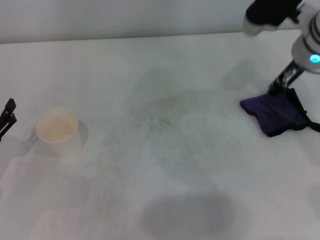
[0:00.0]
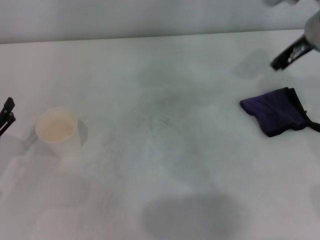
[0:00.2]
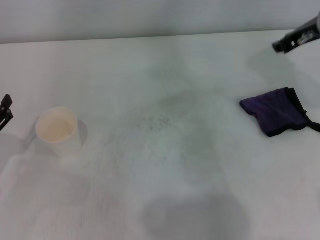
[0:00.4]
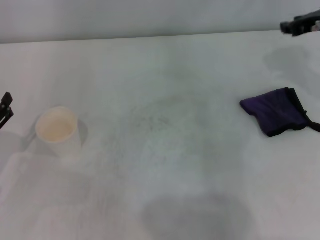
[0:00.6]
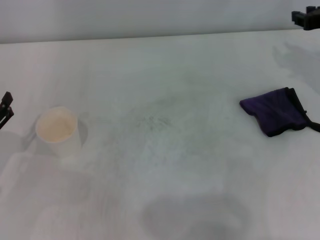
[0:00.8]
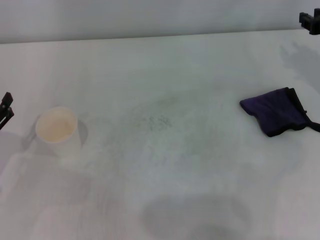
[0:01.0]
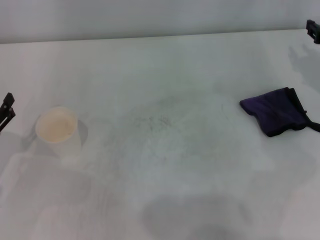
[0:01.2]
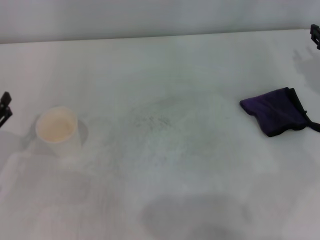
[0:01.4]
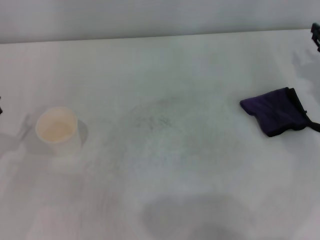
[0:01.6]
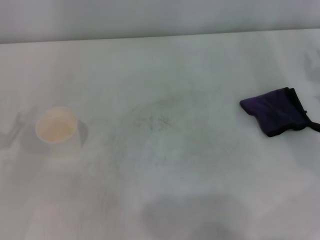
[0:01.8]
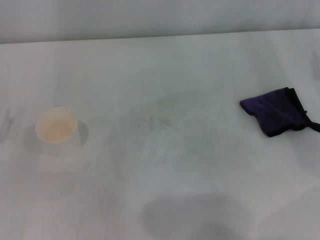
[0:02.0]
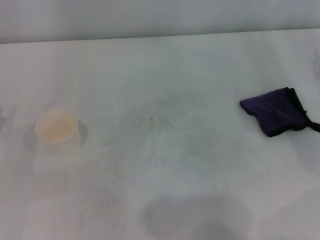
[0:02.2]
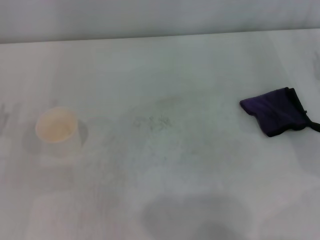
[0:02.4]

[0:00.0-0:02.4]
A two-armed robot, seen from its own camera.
0:00.0 to 0:01.2: The right gripper moves to the right and downward, roughly 15 cm.
